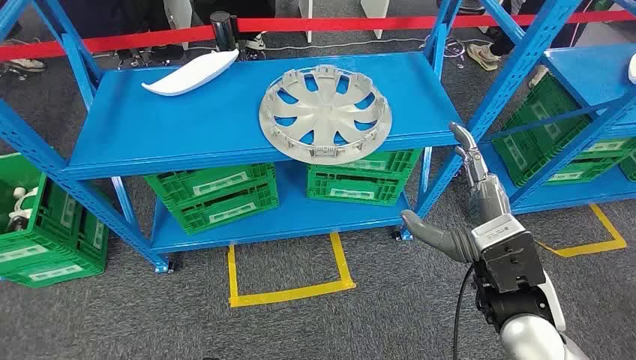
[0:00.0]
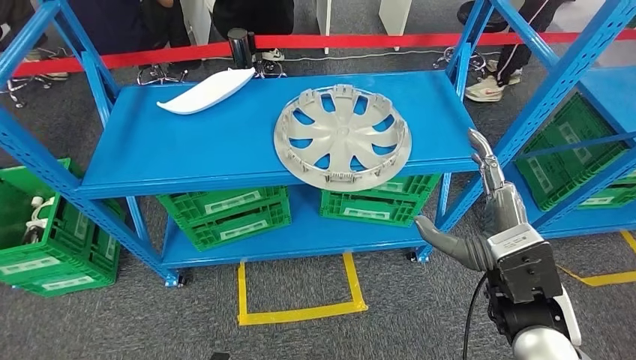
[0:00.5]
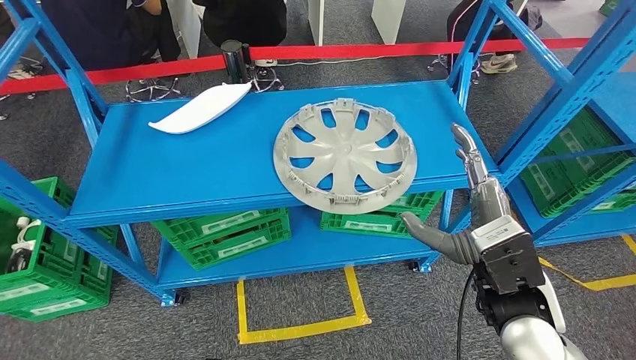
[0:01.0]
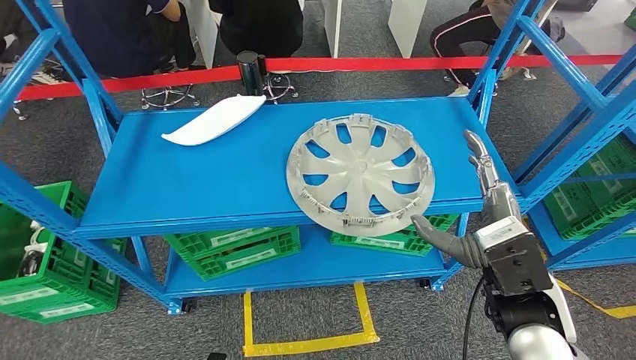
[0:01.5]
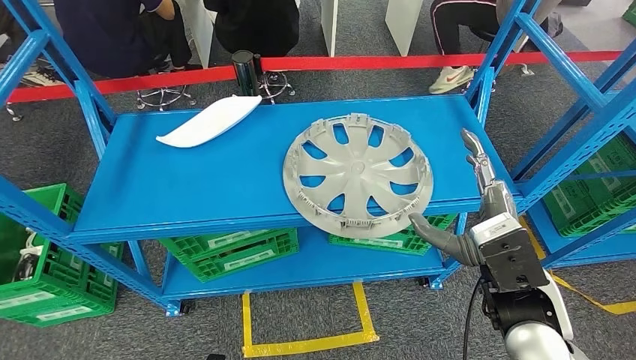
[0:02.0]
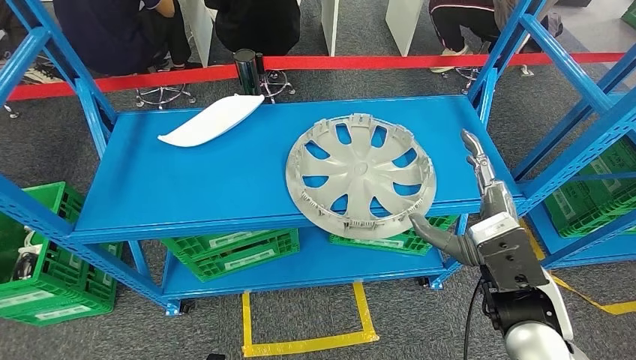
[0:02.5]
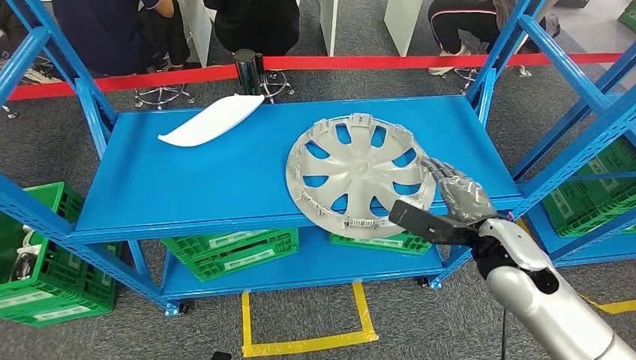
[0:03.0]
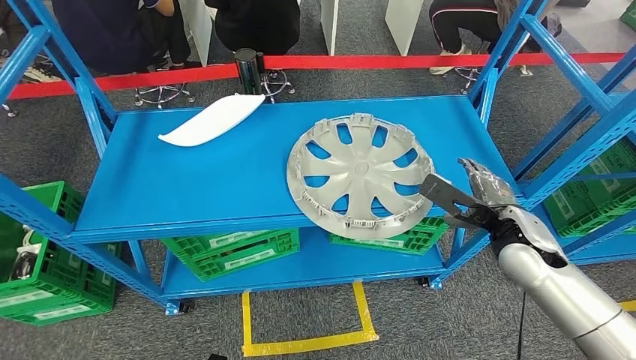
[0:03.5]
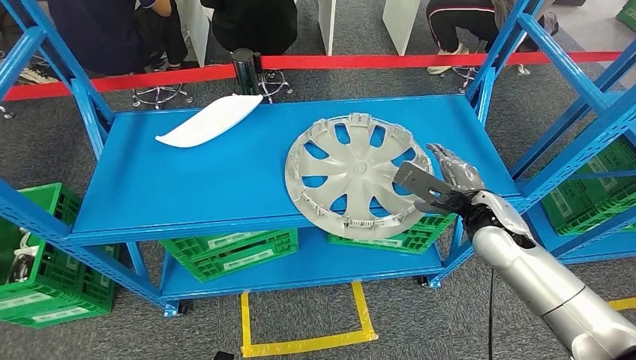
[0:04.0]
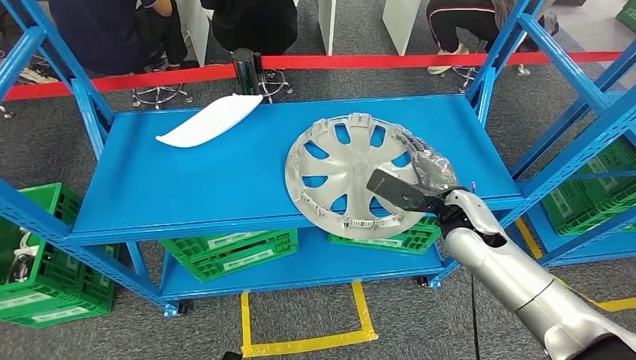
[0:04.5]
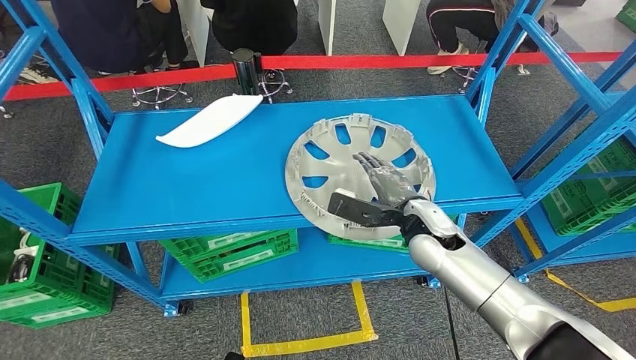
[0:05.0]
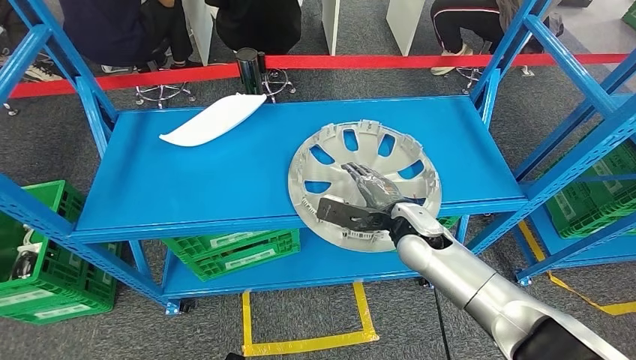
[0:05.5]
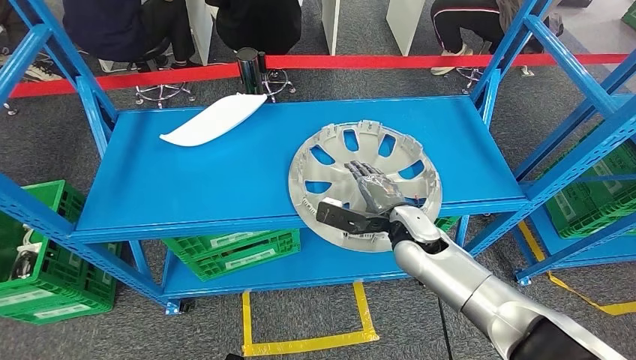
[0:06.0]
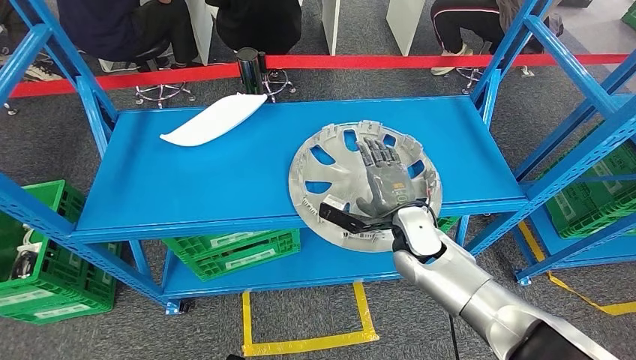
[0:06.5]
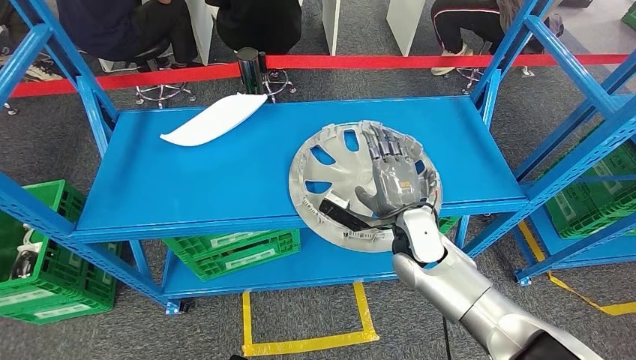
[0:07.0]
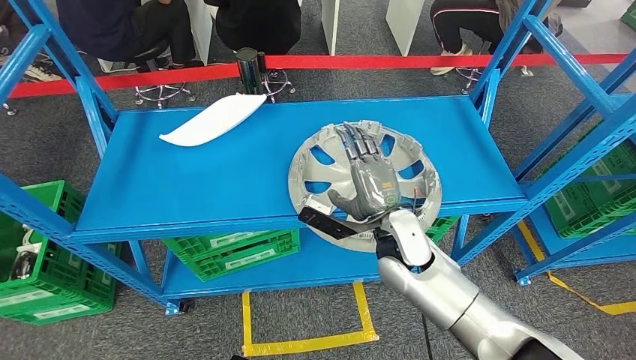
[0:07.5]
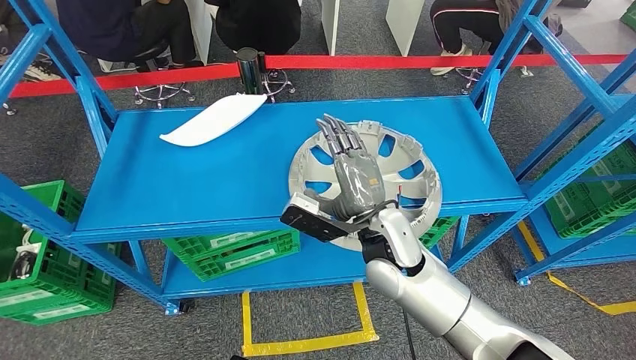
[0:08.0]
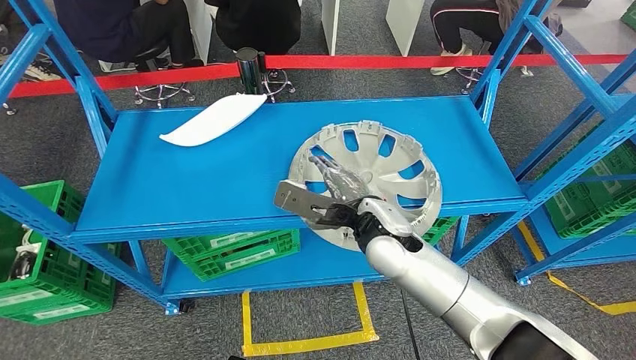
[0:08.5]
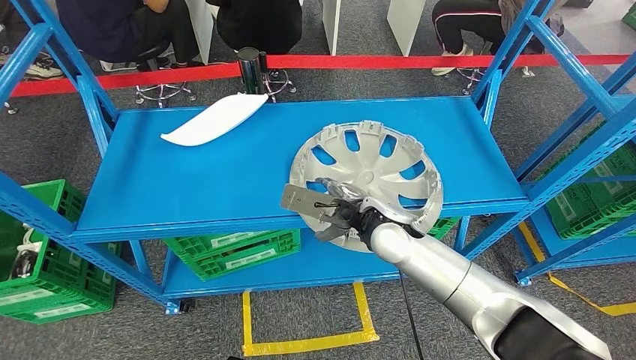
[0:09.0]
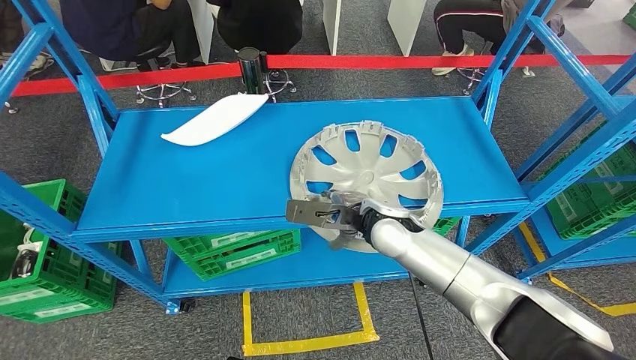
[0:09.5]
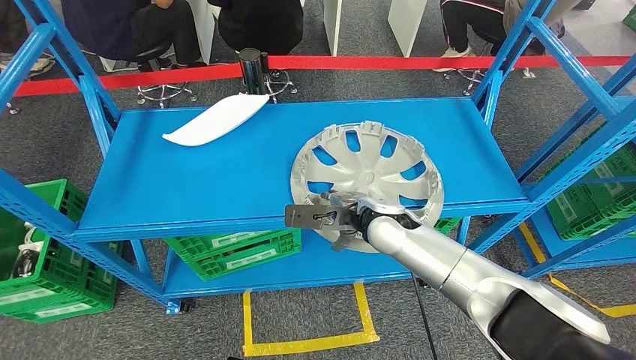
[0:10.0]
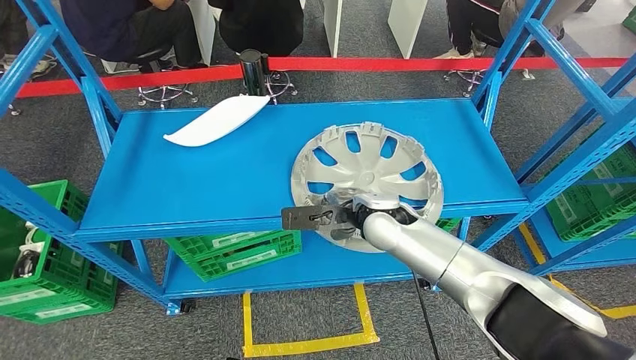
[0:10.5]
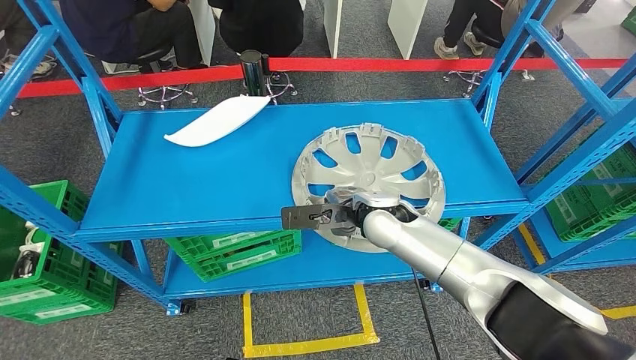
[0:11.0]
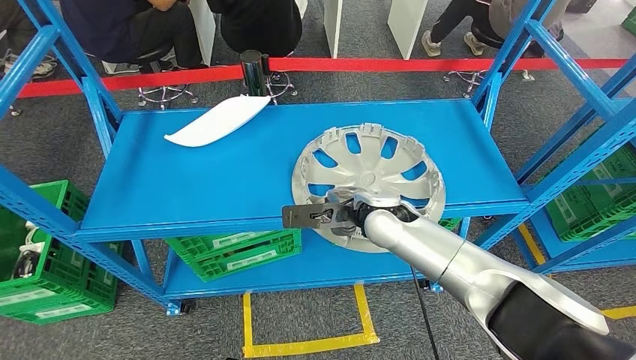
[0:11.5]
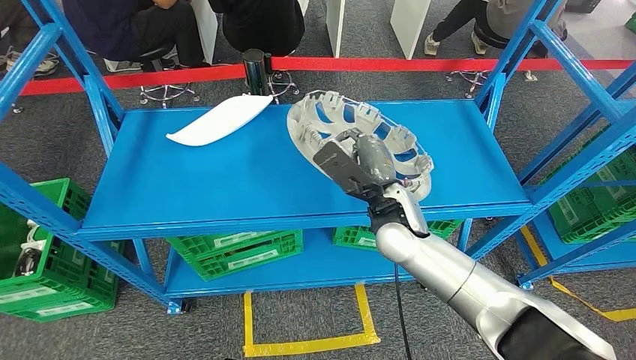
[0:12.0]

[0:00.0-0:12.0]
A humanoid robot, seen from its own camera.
0:02.0 to 0:04.0: The right hand shifts roughly 15 cm forward and to the right.
0:06.0 to 0:08.0: The right hand moves to the left and upward, about 10 cm.

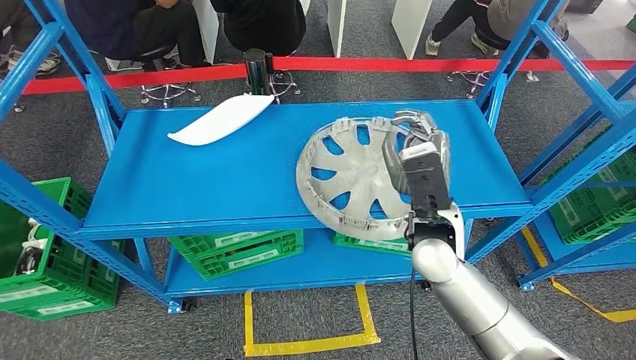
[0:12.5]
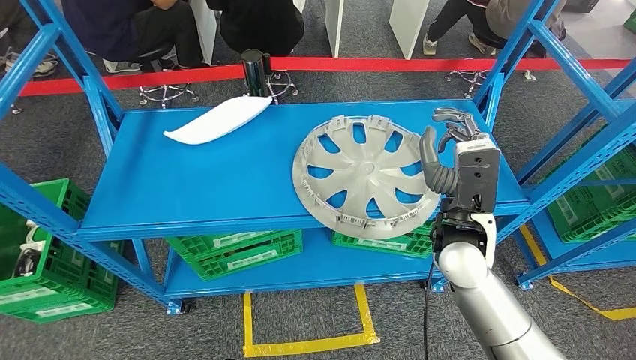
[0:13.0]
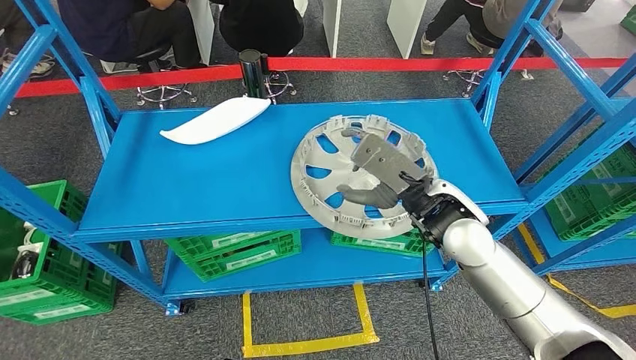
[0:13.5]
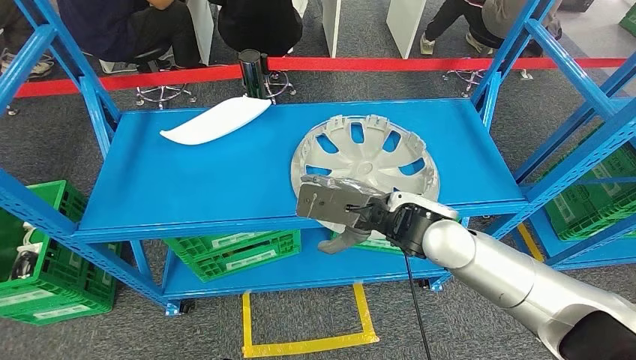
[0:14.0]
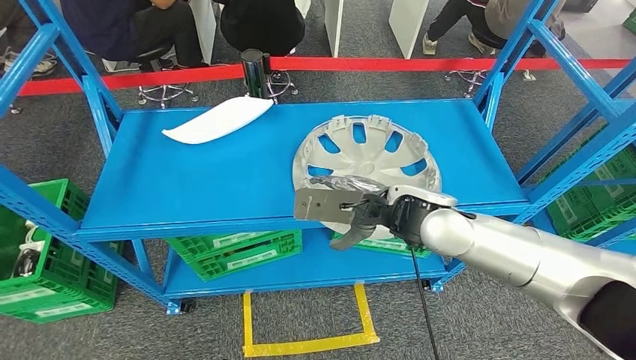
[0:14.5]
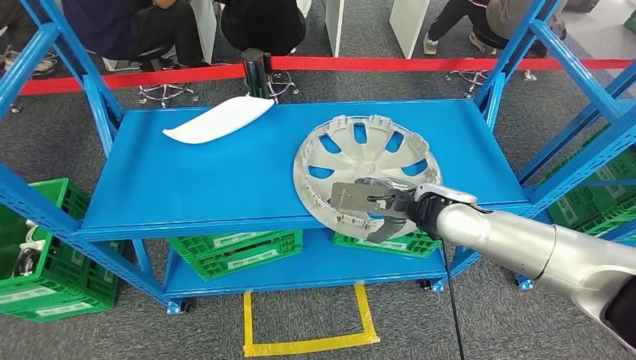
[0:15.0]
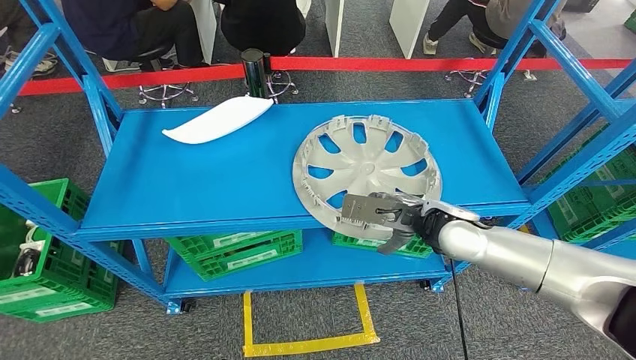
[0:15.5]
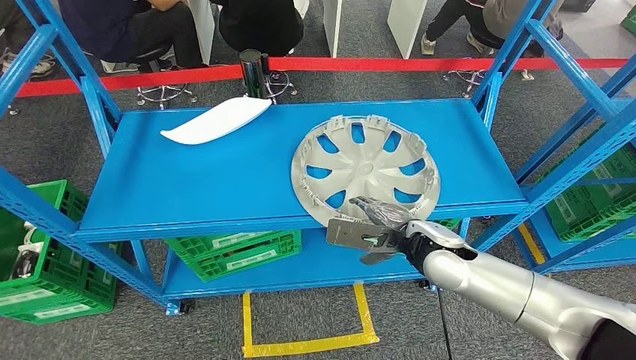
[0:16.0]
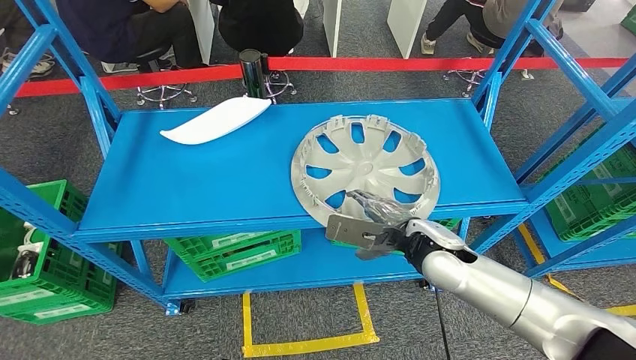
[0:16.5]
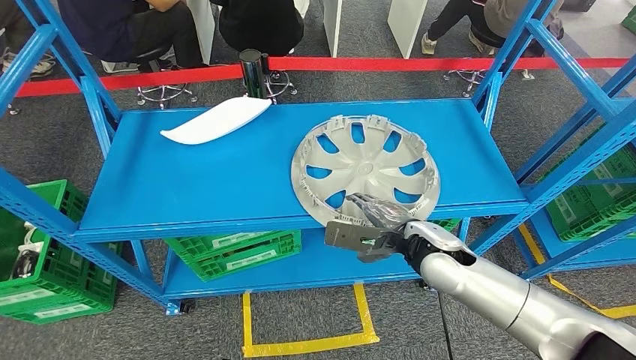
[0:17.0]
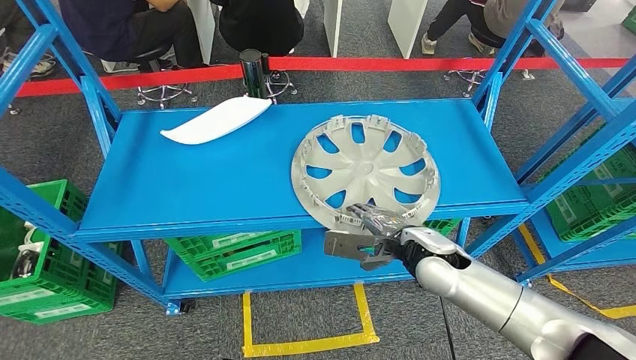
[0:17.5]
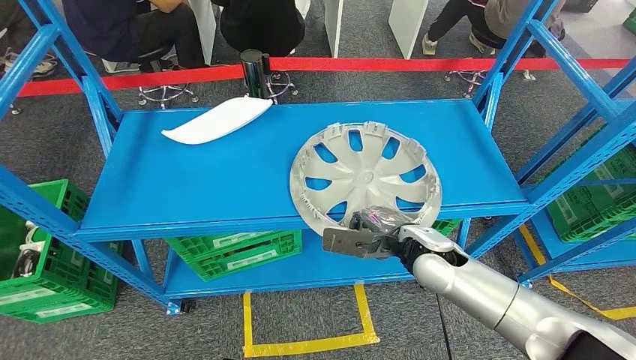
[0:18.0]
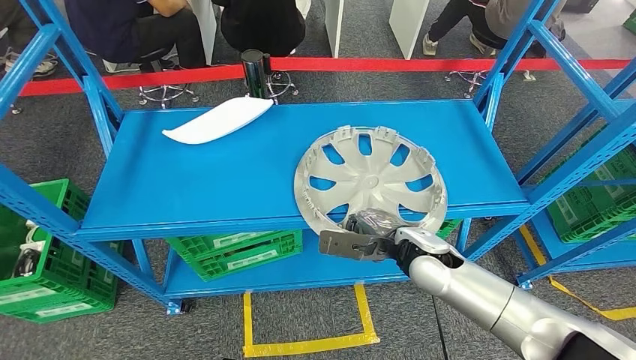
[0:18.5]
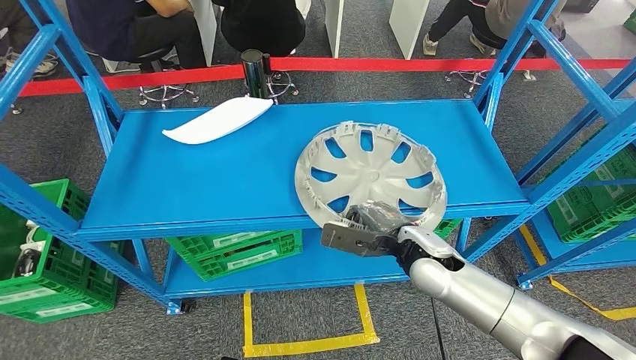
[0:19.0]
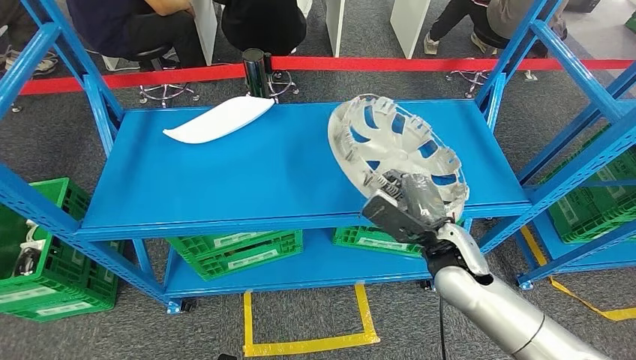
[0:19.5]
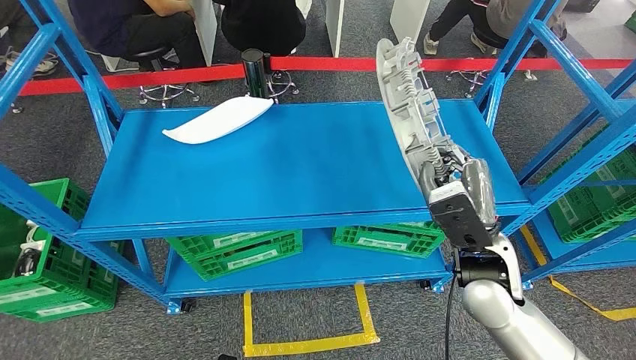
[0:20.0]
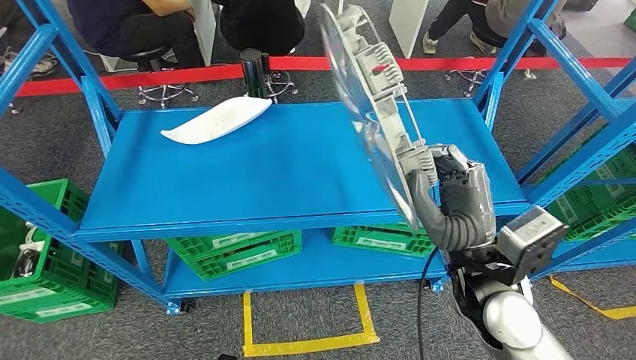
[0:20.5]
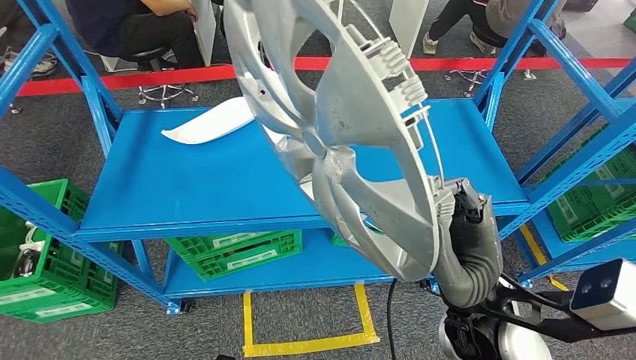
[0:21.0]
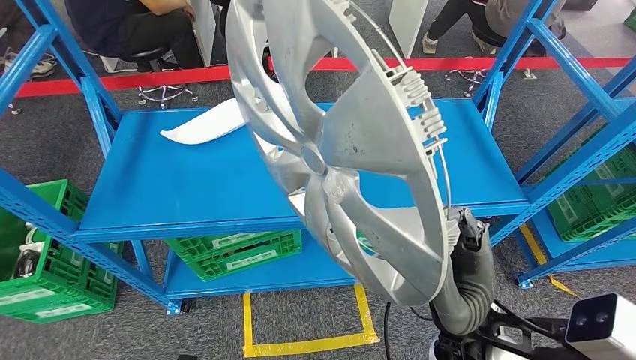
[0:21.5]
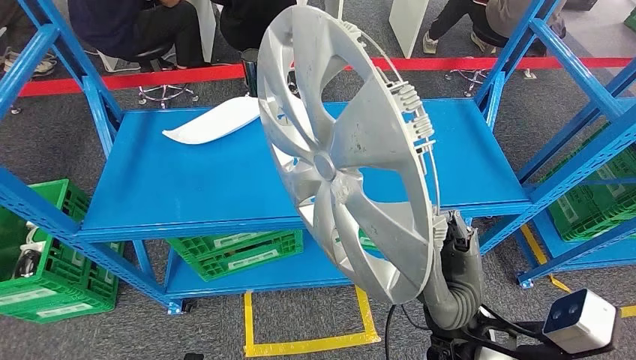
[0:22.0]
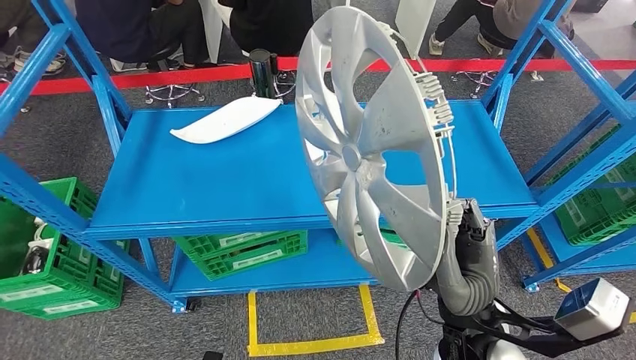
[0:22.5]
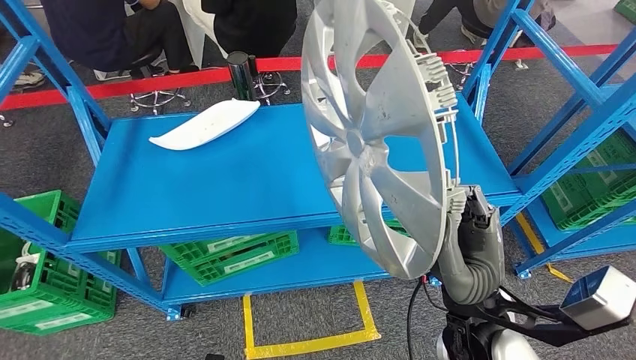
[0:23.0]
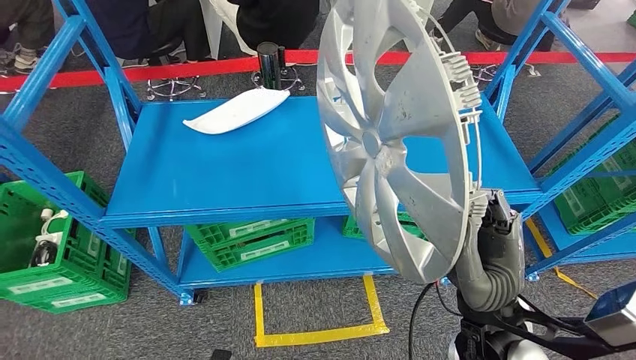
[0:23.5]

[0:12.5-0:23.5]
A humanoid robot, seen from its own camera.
Step, 0:12.5 to 0:19.0: Pick up the small parts from the shelf.
0:14.5 to 0:16.0: The right hand travels downward by roughly 10 cm.
0:16.0 to 0:18.0: There are only small adjustments of the hands.
0:18.0 to 0:20.0: The right hand heads upward and backward, covering some 10 cm.
